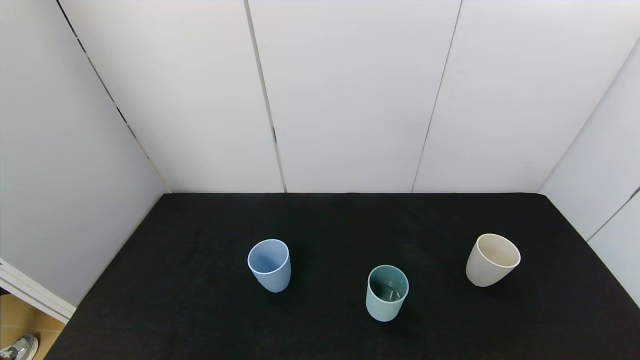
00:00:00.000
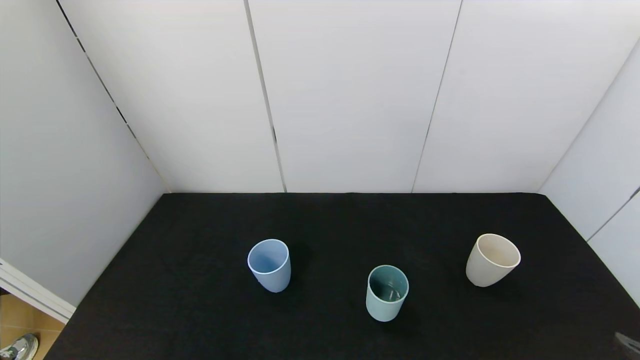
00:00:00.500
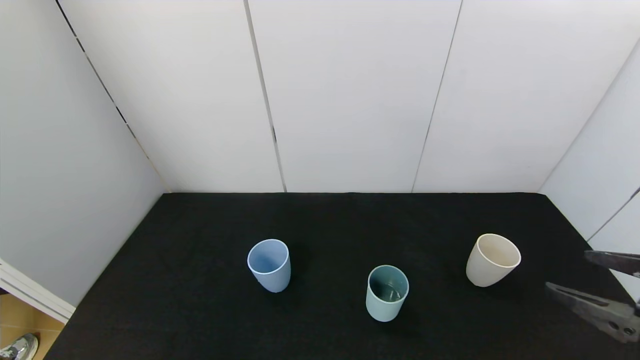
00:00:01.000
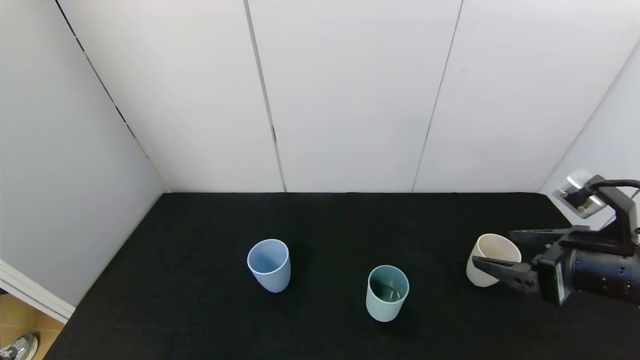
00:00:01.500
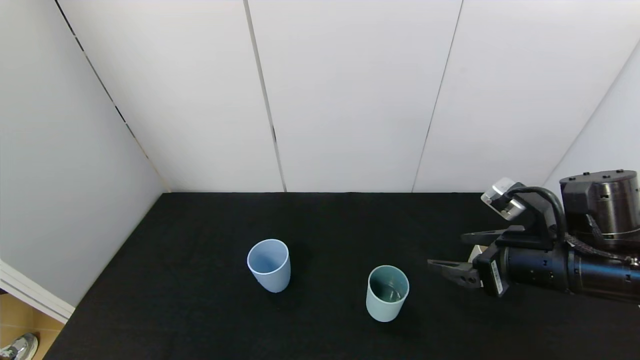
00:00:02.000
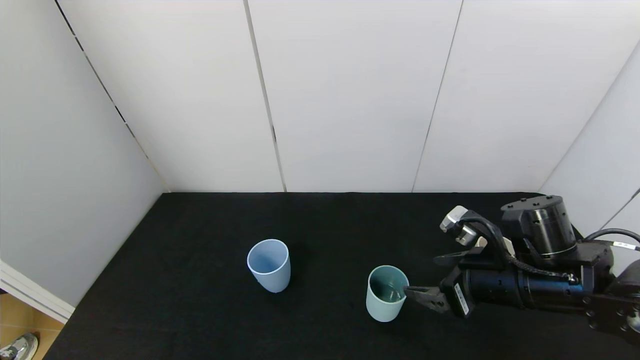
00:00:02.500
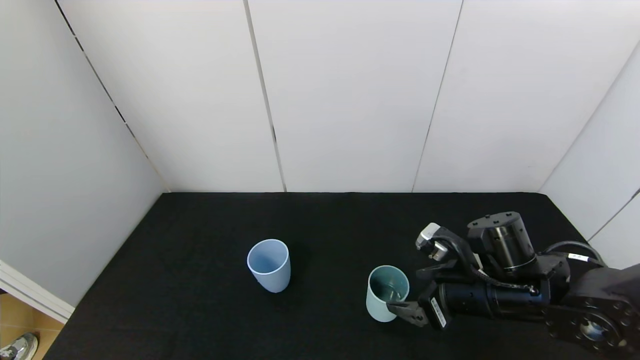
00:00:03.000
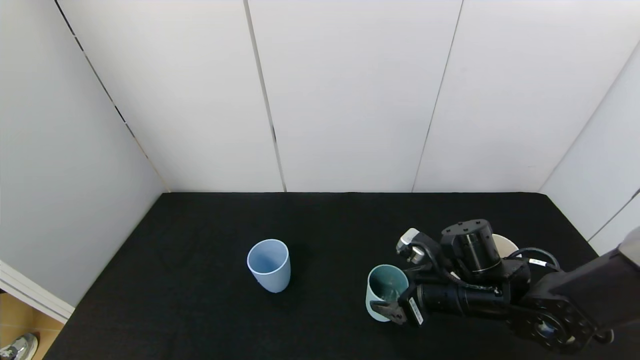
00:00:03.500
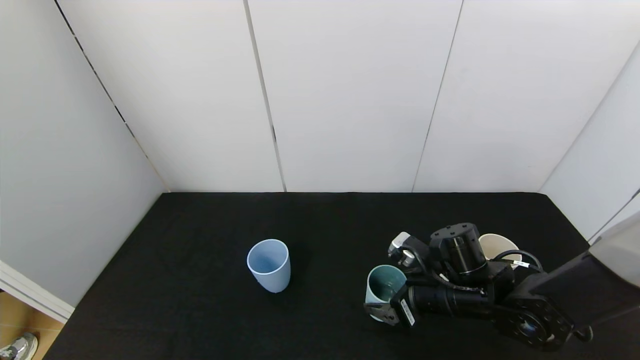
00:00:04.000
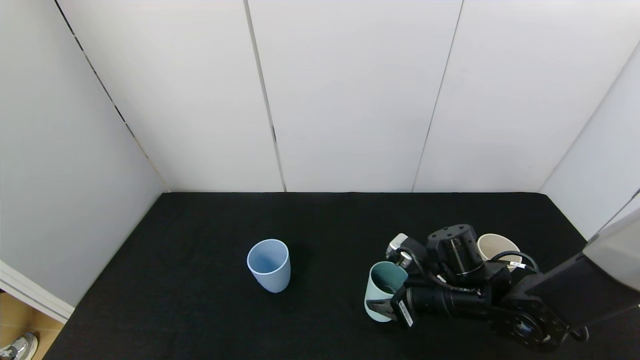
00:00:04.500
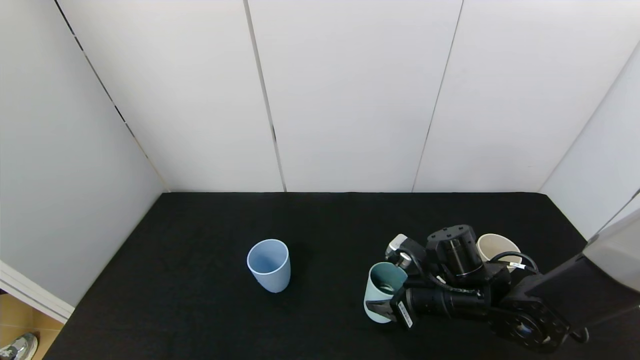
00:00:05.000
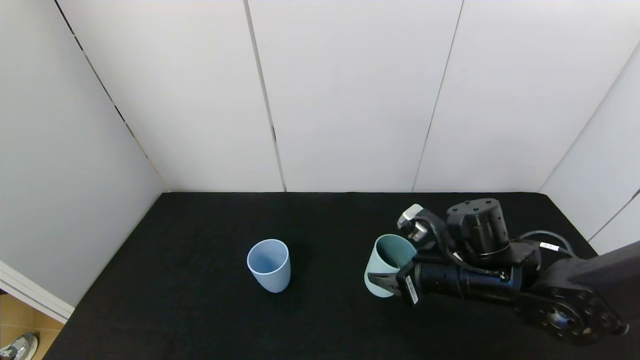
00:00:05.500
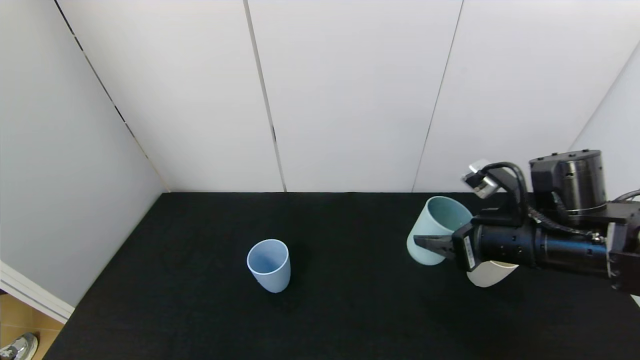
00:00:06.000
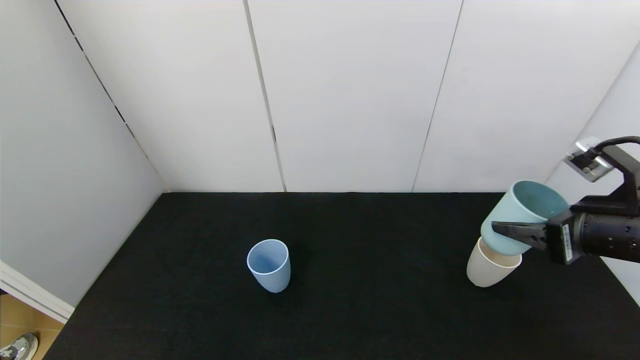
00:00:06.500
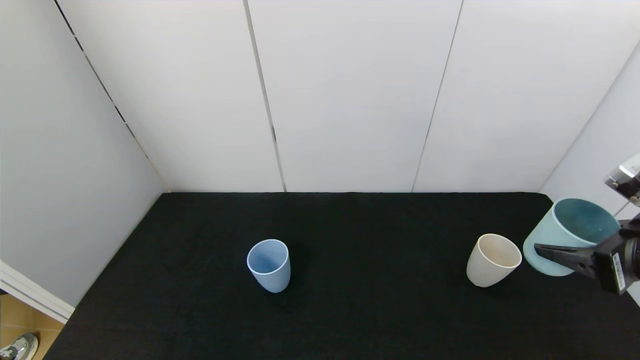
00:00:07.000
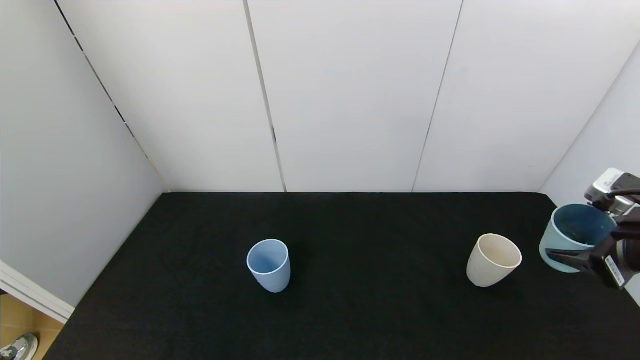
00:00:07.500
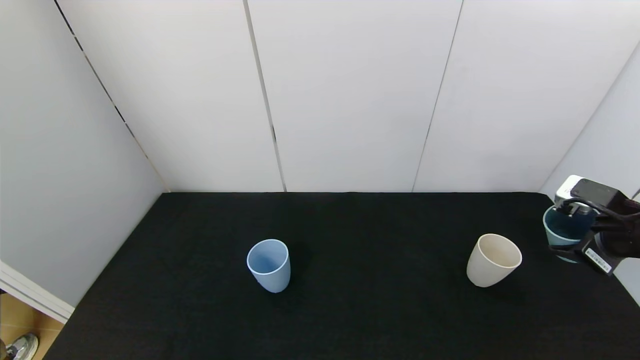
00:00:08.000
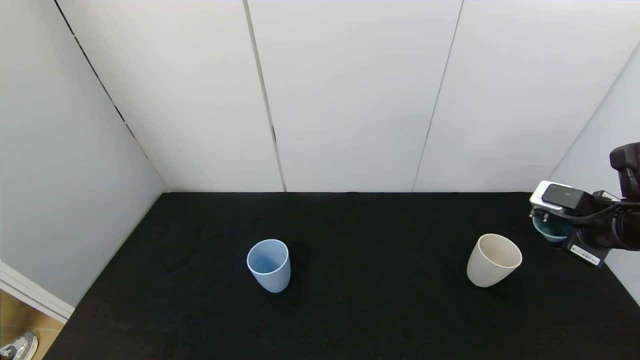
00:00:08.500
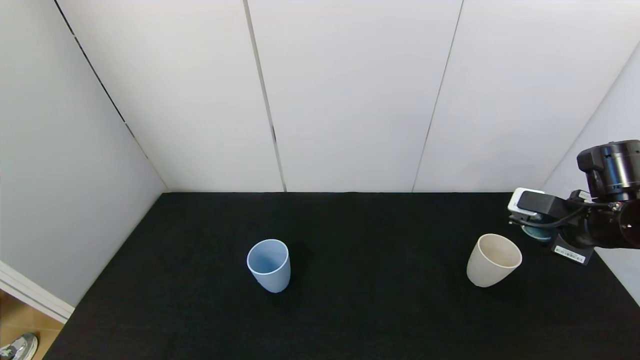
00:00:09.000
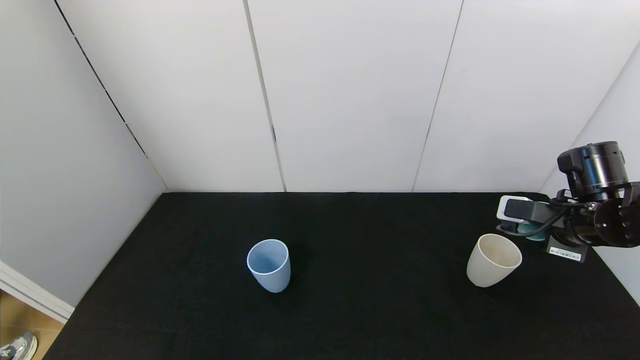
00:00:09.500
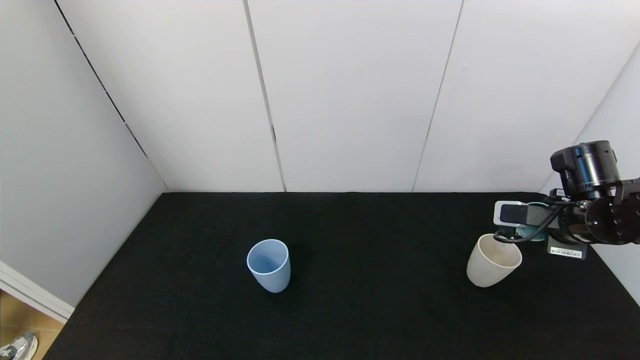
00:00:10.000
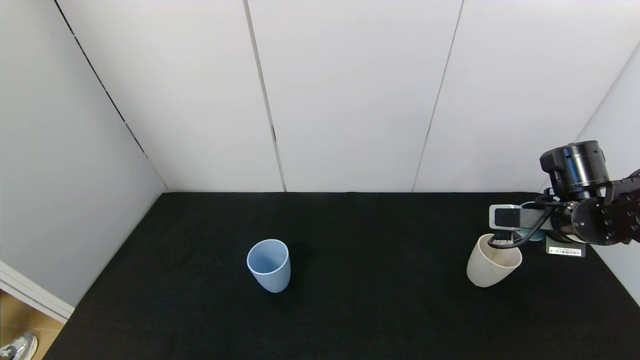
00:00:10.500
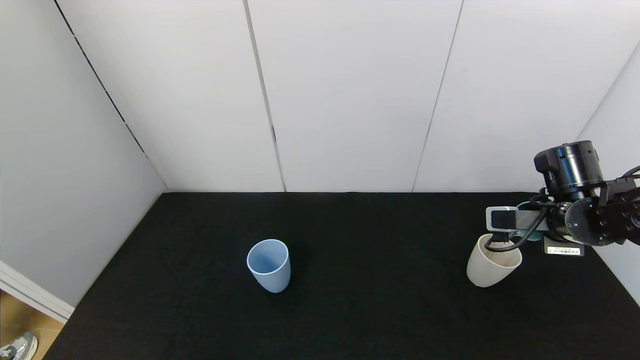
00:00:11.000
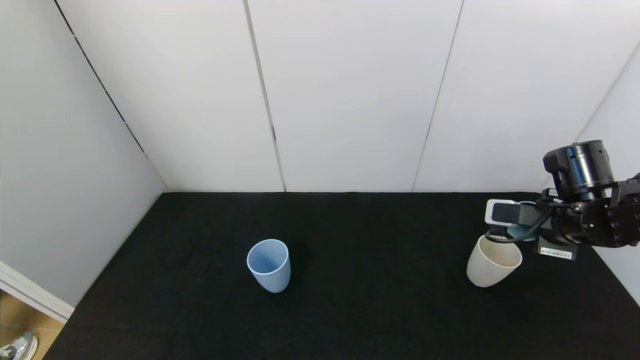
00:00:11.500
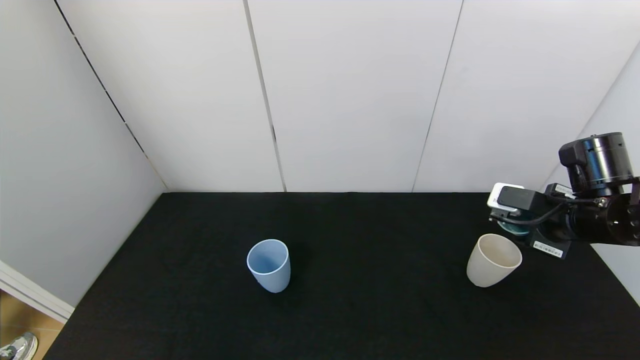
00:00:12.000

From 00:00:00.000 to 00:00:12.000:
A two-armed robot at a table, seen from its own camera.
Task of the whole recording: use the gripper to pour the water into the other two cups on black table.
Step, from 00:00:00.000 to 00:00:04.500: Grasp the green cup with the right gripper.
Step, from 00:00:05.000 to 00:00:11.500: Pour water from green cup to white cup with the right gripper.
From 00:00:00.000 to 00:00:02.000: The right gripper moves forward, about 25 cm.
From 00:00:02.000 to 00:00:04.000: The right gripper moves downward and to the left, about 15 cm.
From 00:00:04.000 to 00:00:06.000: The right gripper heads upward and to the right, covering about 15 cm, and closes.
From 00:00:06.000 to 00:00:08.000: The right gripper shifts approximately 15 cm to the right.
From 00:00:08.000 to 00:00:10.000: The right gripper shifts approximately 5 cm forward.
From 00:00:10.000 to 00:00:12.000: The grippers stay close to where they were, moving slightly.

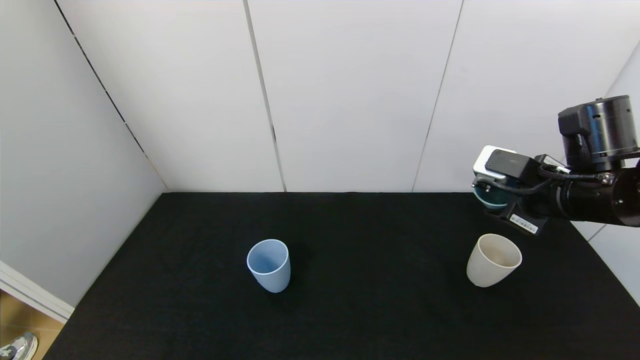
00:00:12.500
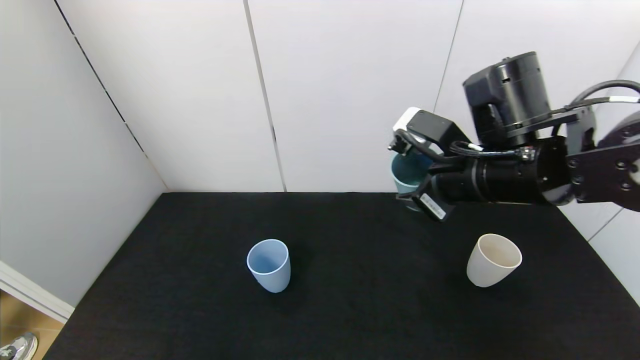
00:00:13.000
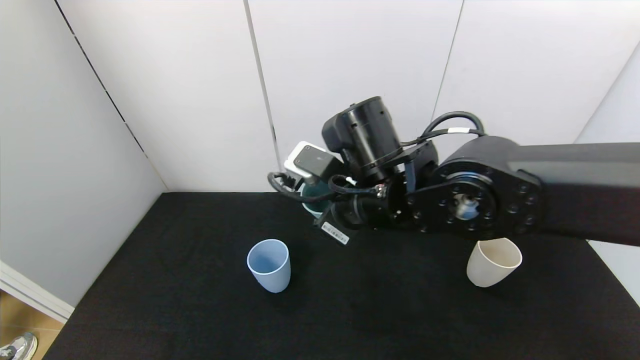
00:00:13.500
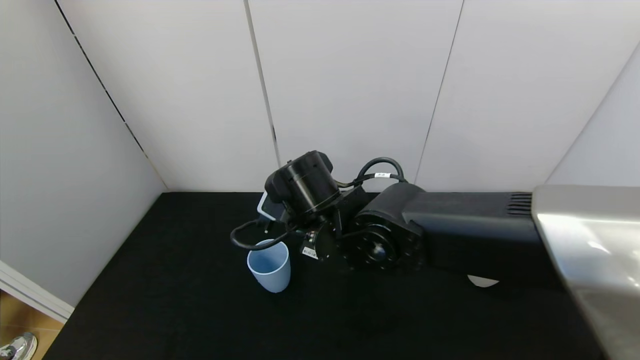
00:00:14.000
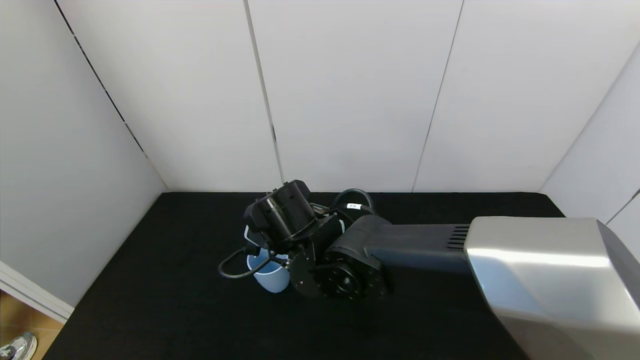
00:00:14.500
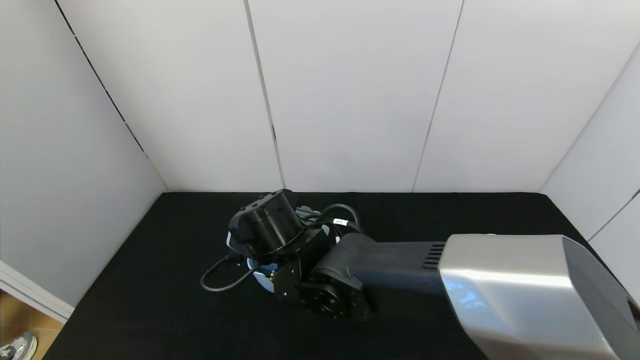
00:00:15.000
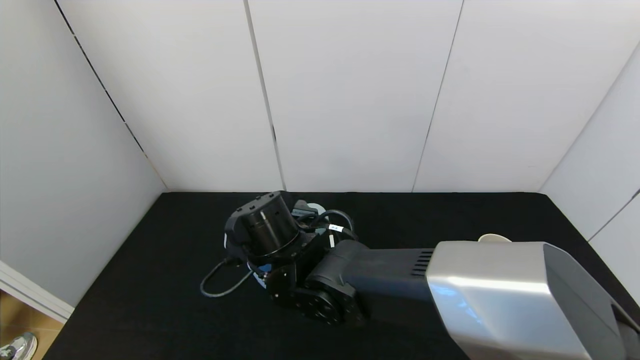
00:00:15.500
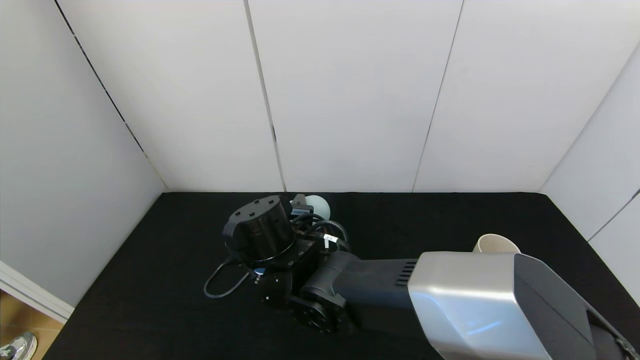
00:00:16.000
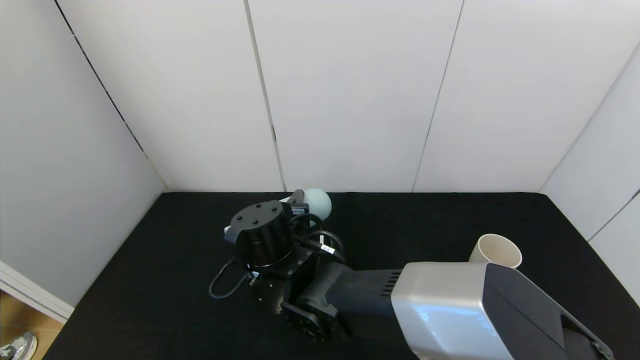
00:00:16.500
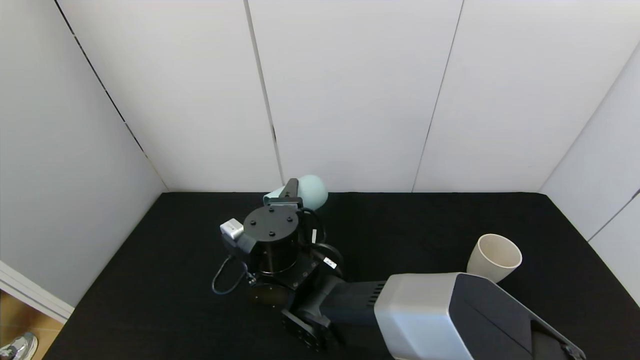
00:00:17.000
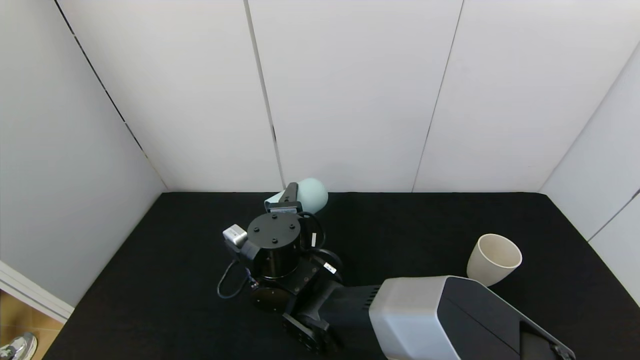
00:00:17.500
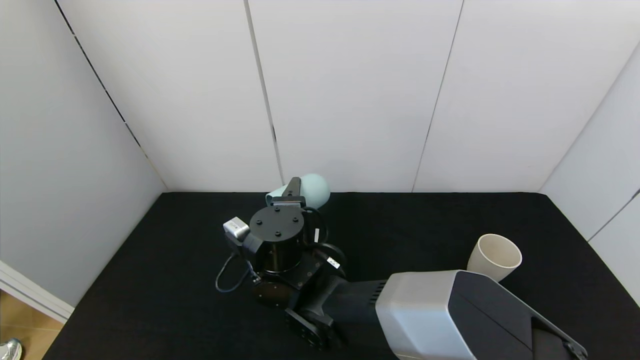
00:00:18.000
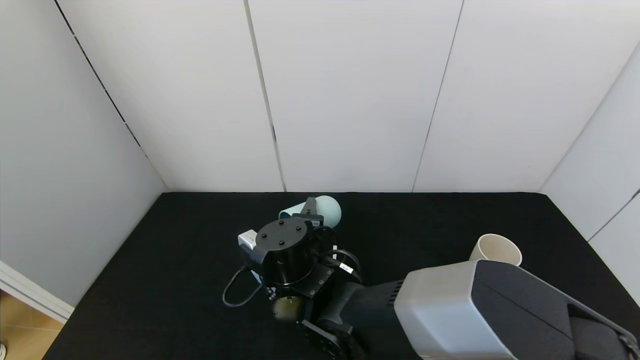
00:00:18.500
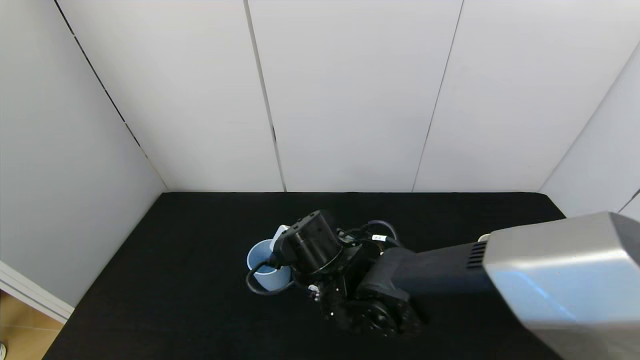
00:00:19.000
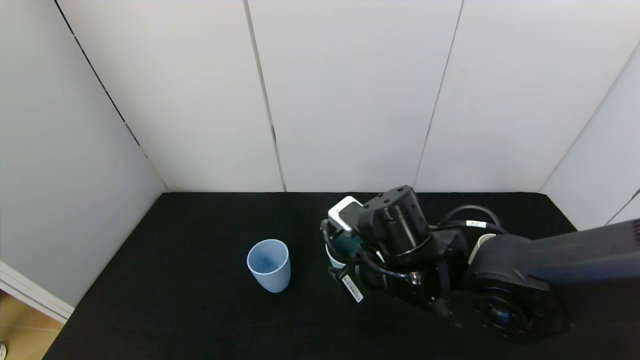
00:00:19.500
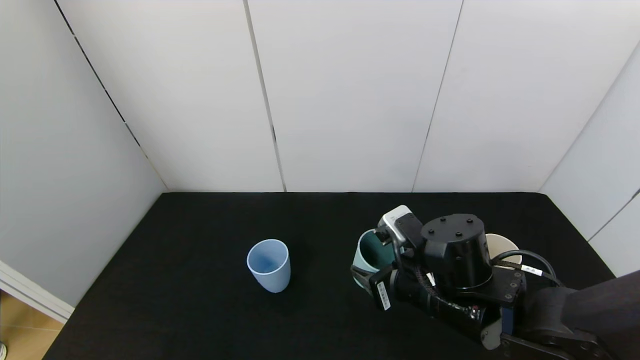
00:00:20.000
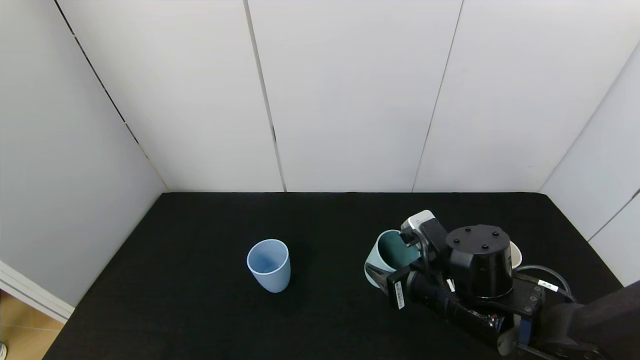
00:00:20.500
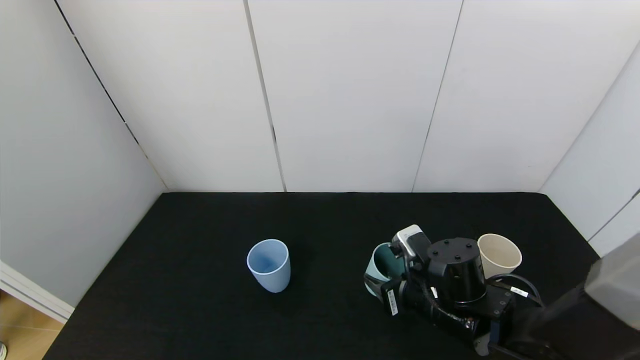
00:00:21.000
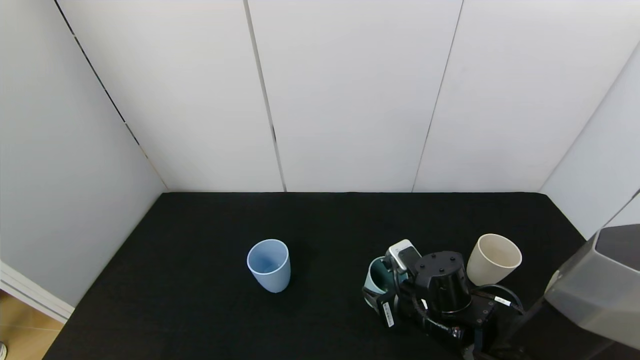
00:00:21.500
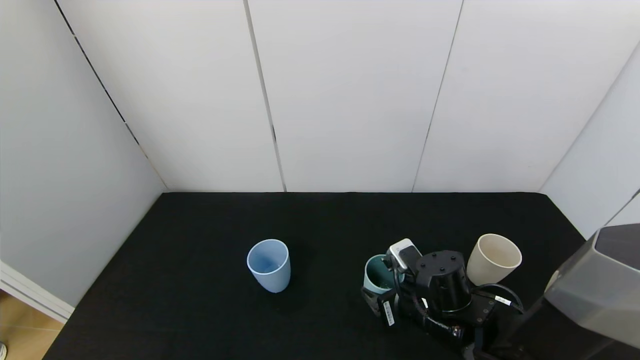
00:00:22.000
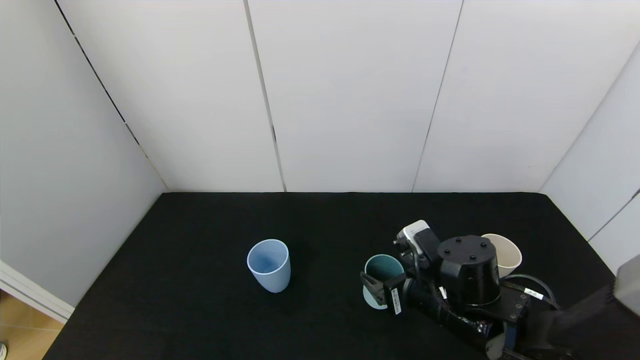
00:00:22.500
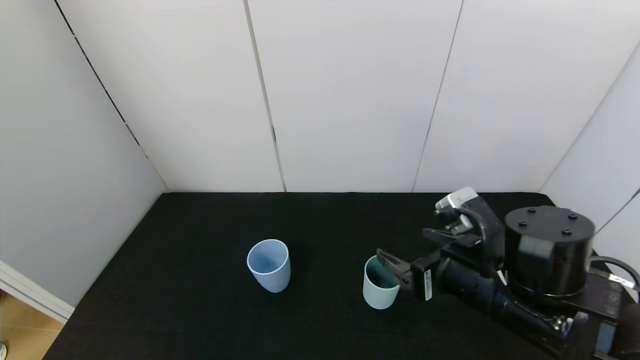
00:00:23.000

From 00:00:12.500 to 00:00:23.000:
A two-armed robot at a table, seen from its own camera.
Task of the whole recording: use the gripper to pour the water into the other two cups on black table.
Step, from 00:00:12.500 to 00:00:18.000: Pour water from green cup to blue cup with the right gripper.
Step, from 00:00:18.500 to 00:00:22.500: Place the green cup with the right gripper.
From 00:00:12.500 to 00:00:14.500: The right gripper travels to the left by approximately 30 cm.
From 00:00:16.500 to 00:00:19.000: The right gripper is displaced to the right by roughly 5 cm.
From 00:00:19.000 to 00:00:21.000: The right gripper heads to the right, covering some 15 cm.
From 00:00:21.000 to 00:00:23.000: The right gripper heads upward, covering about 10 cm, and opens its fingers.
